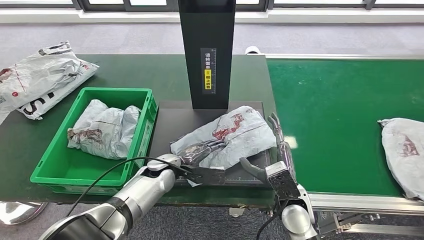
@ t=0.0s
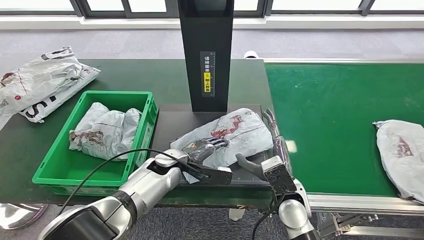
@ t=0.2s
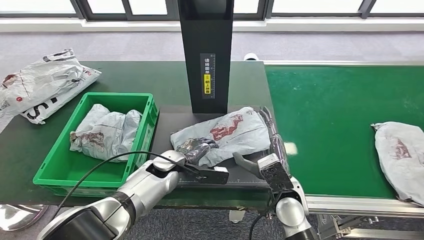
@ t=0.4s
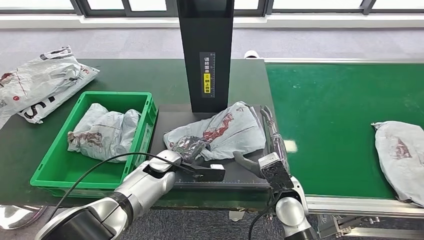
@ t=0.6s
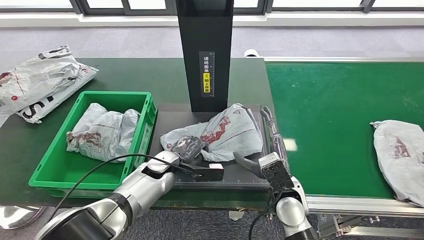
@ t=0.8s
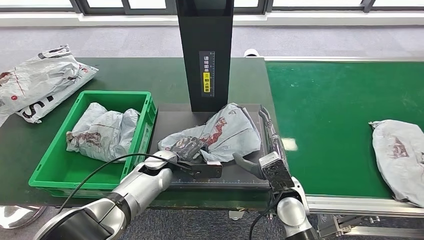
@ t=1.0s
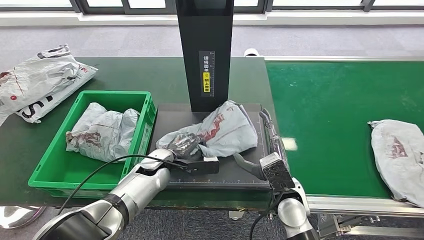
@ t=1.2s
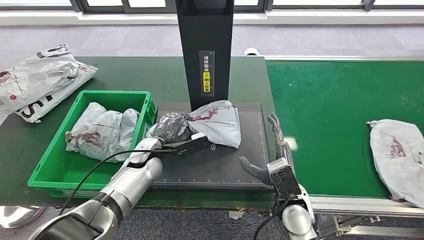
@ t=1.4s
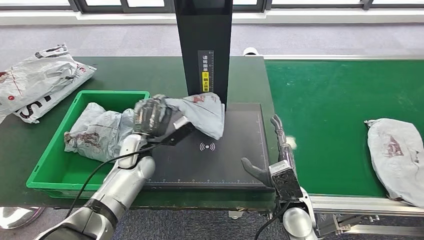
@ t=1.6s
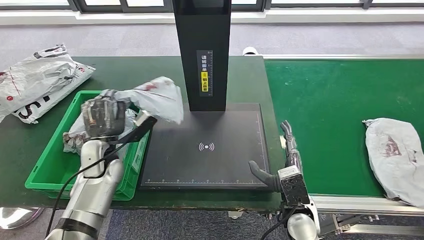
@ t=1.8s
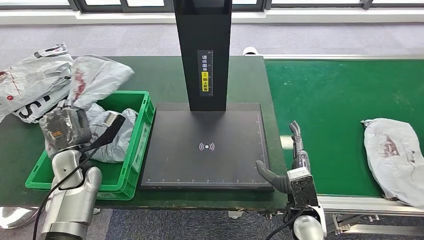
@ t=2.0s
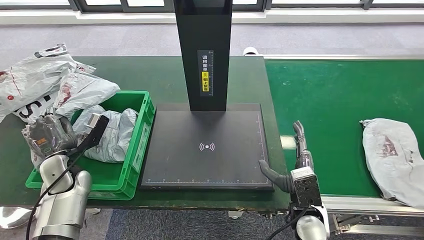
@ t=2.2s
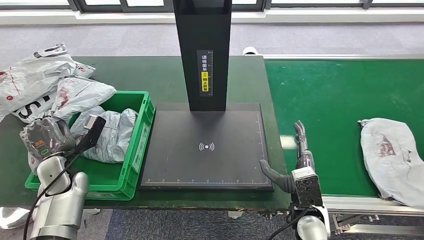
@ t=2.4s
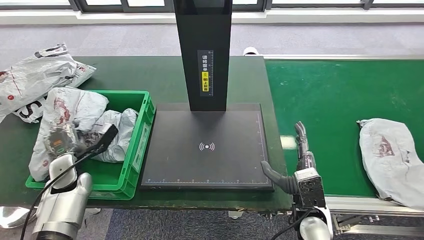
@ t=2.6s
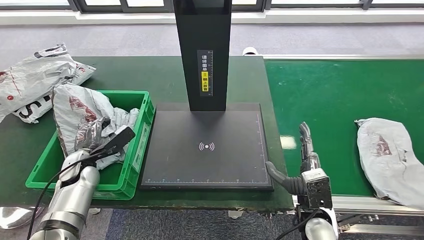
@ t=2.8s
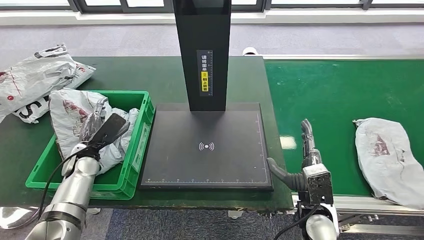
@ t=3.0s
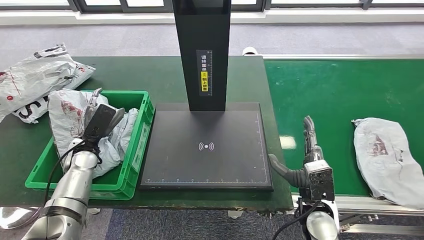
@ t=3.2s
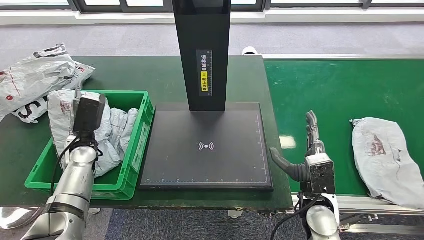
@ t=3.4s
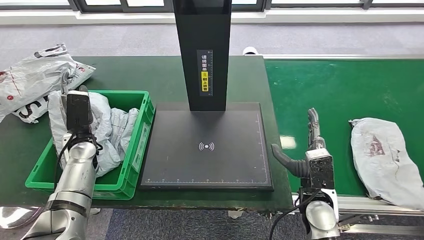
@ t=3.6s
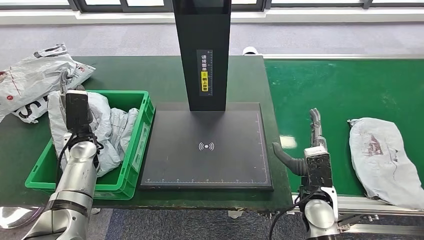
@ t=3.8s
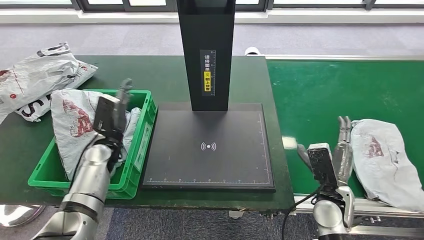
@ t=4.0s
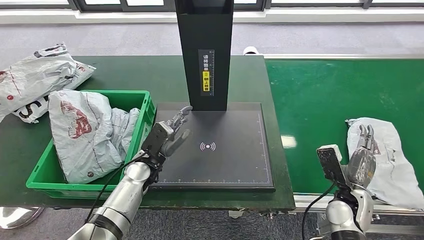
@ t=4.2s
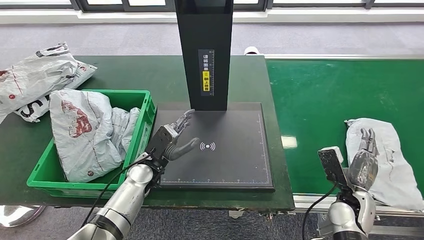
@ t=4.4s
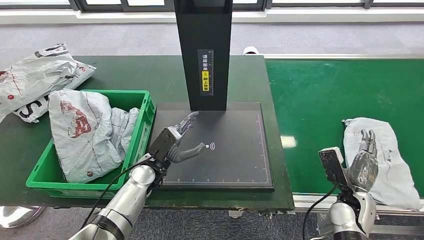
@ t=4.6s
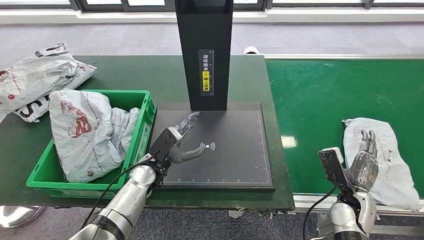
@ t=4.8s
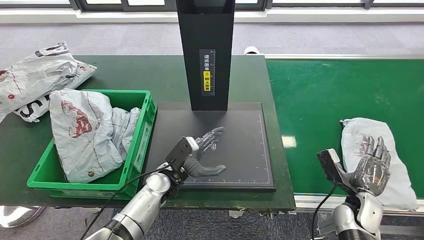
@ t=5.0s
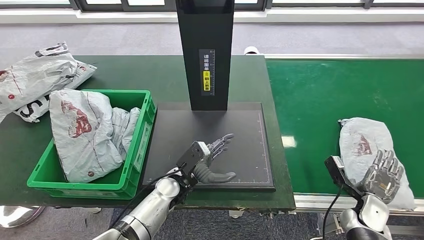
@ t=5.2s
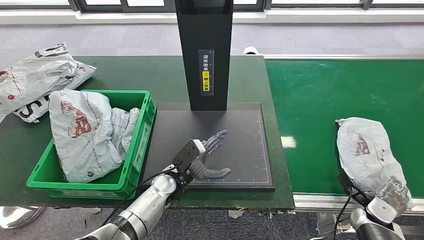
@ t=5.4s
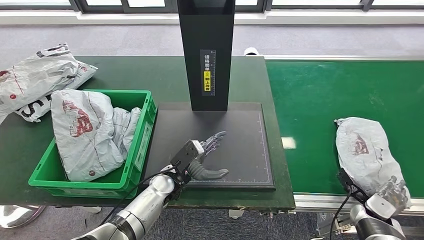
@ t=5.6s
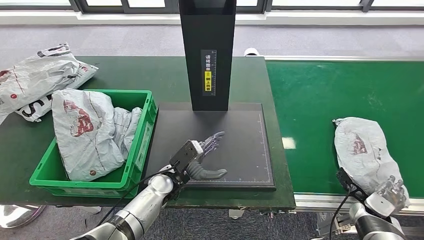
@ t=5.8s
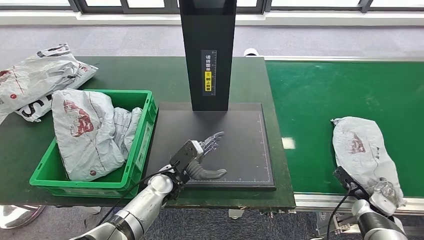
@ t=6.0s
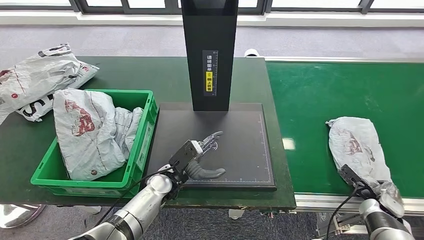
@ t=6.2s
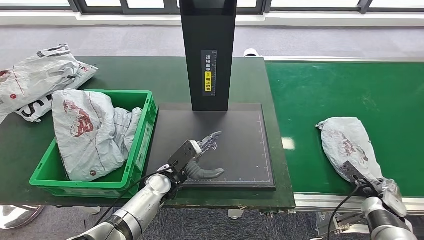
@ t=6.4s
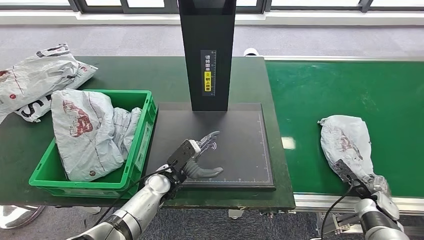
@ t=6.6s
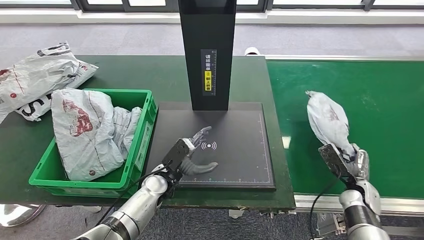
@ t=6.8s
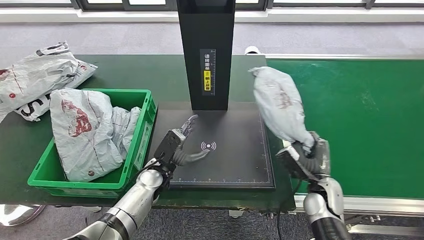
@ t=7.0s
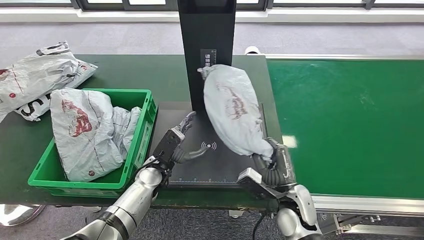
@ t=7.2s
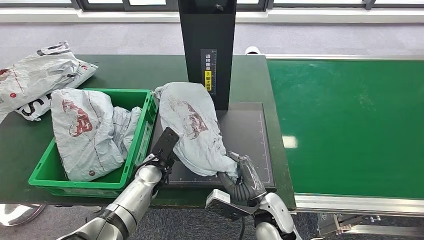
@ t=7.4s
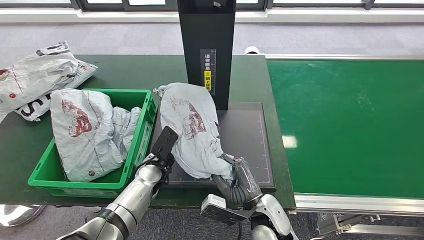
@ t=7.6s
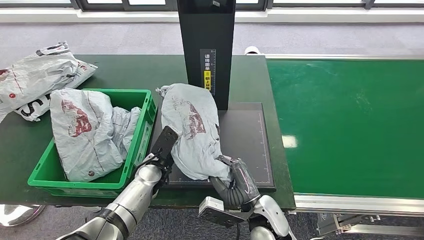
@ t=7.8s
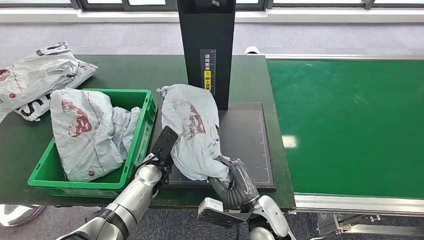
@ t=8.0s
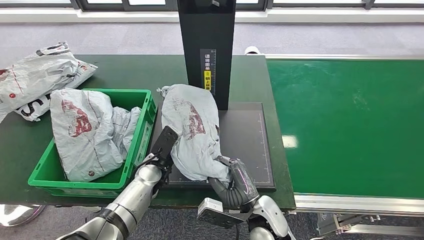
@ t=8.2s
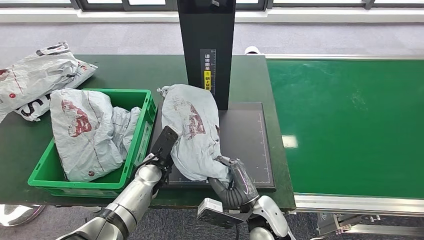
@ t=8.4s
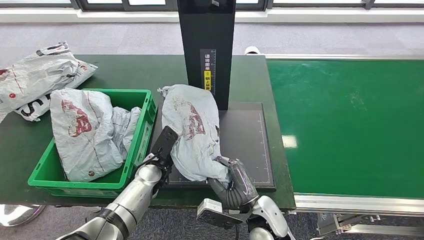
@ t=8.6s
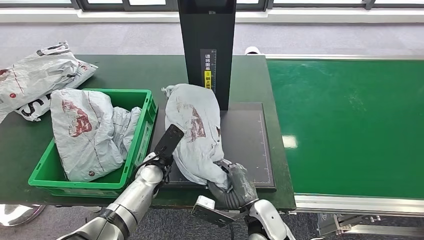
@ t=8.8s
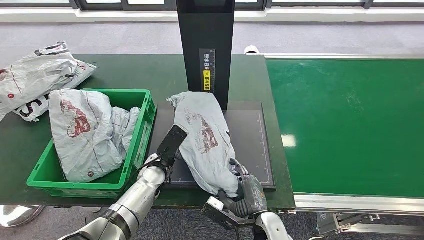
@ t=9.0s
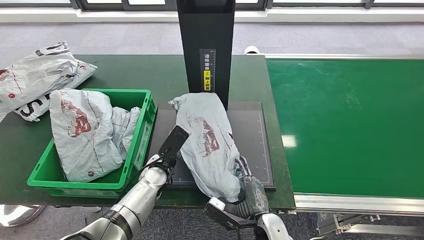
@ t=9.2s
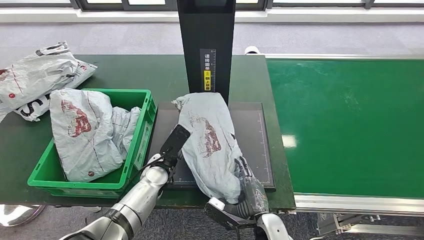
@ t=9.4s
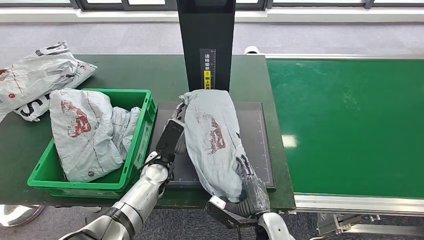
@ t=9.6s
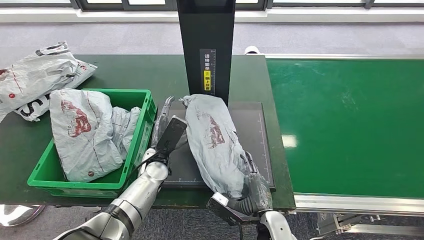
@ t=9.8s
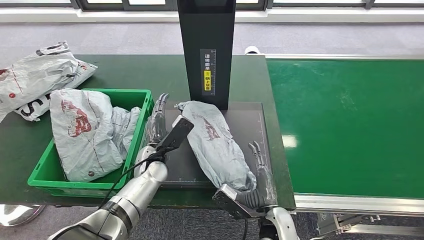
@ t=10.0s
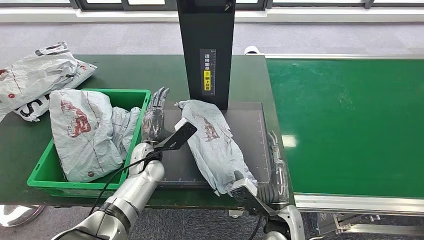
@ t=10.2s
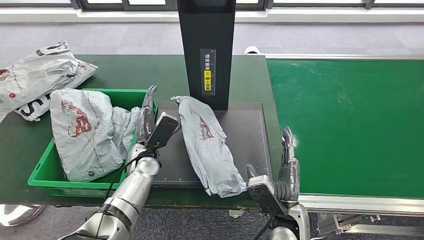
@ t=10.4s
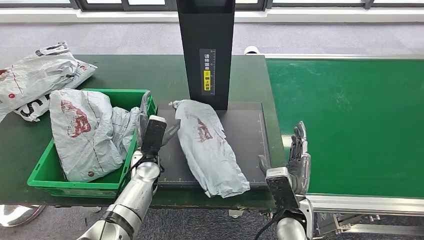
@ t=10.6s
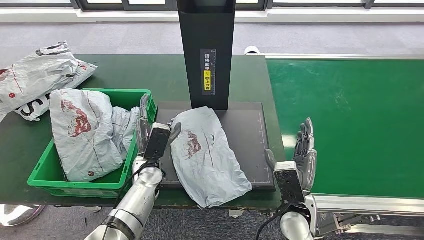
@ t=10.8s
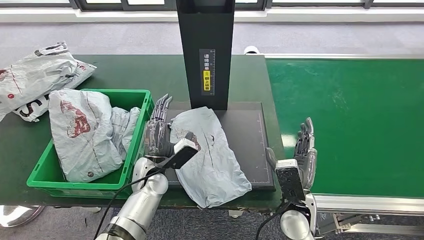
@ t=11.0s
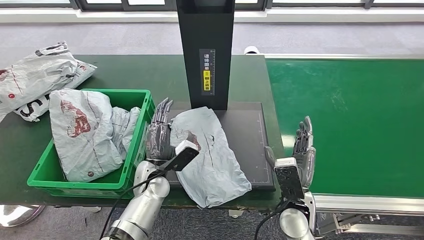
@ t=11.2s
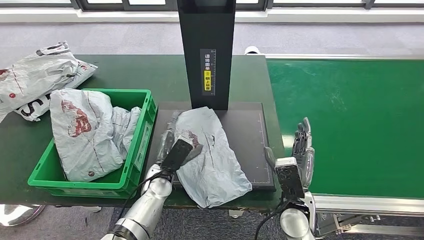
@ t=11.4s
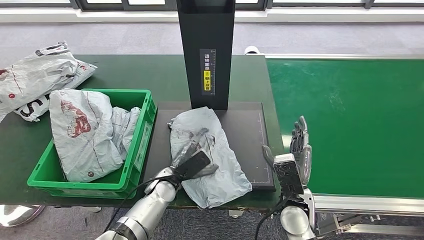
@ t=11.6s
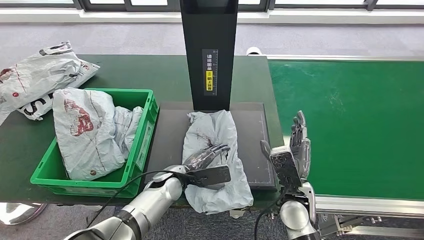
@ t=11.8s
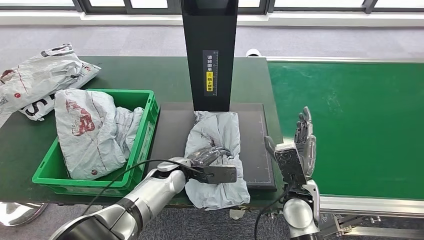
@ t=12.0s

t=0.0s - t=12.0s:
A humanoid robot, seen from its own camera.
Step, t=2.0s - t=3.2s: Place the parcel into the delivery box.
Step, t=3.4s - t=6.6s: Pick up the parcel from the conveyor belt.
Step, t=7.0s - t=8.0s: Place the parcel onto the inbound machine.
t=7.6s - t=9.0s: The right hand ends up approximately 5 cm from where it was.
t=9.0s - t=10.4s: The right hand changes place by roughly 5 cm.

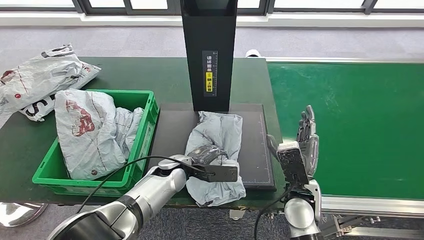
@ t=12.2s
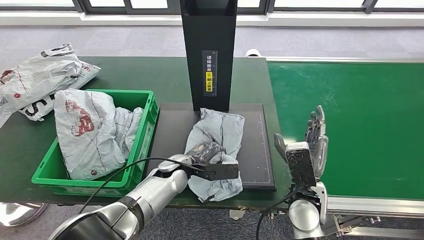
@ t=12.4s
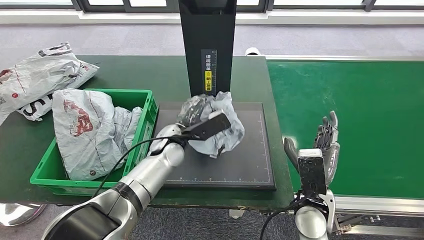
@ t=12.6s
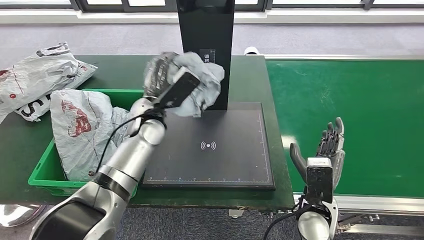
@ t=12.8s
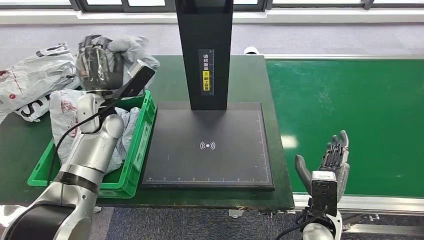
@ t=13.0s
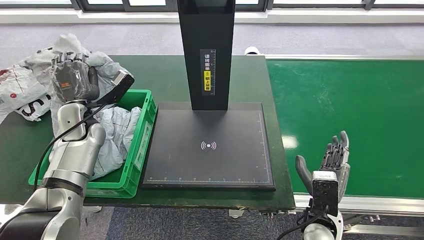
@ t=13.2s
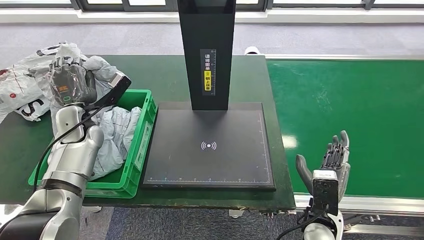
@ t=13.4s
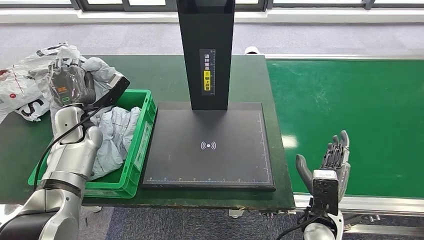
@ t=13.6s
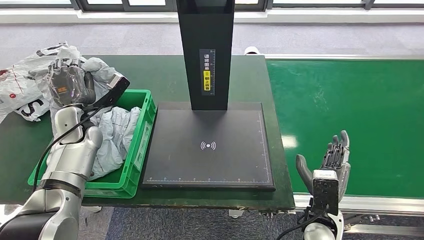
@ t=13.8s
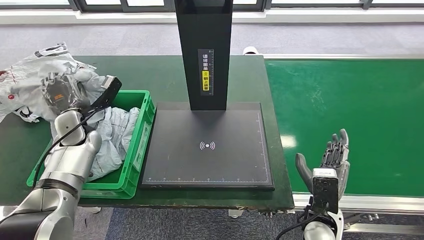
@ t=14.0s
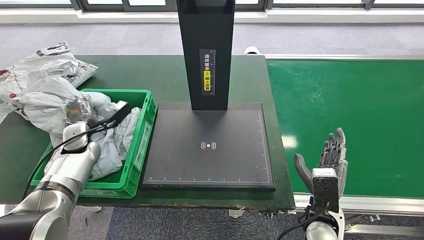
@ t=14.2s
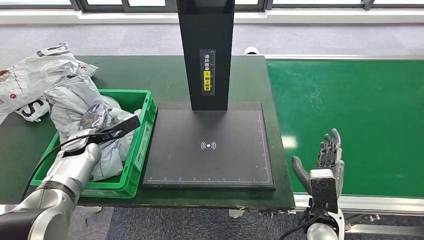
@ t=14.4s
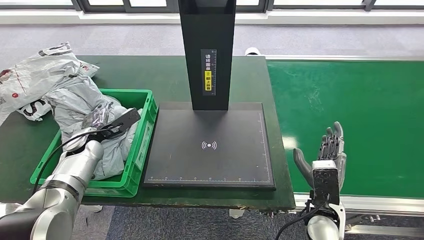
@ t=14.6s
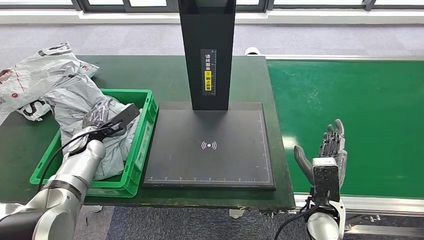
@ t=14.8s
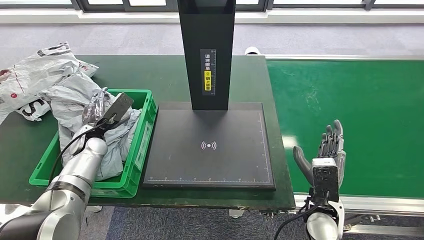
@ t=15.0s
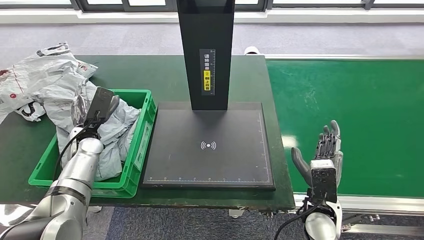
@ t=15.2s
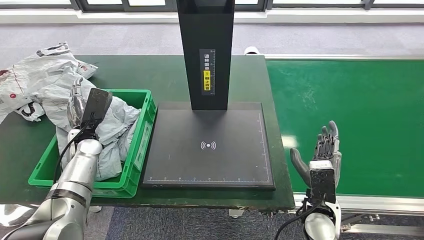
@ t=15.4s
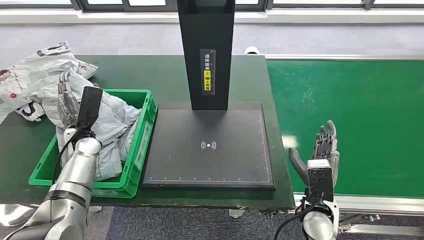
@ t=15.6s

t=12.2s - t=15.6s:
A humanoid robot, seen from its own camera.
Step, t=13.6s - t=15.4s: Place the parcel into the delivery box.
t=13.8s - t=15.6s: The left hand heads downward, covering about 5 cm.
